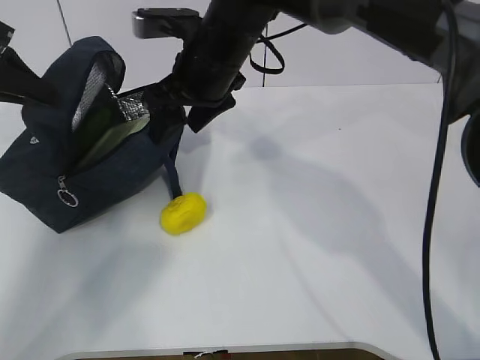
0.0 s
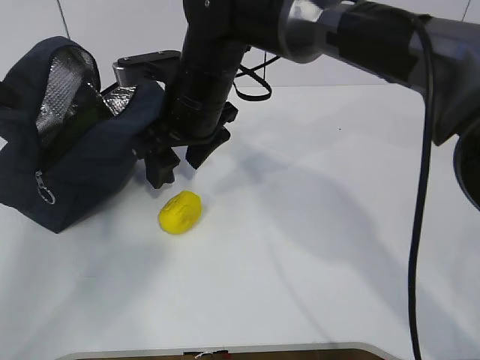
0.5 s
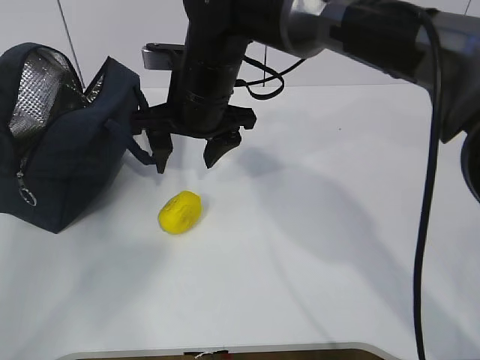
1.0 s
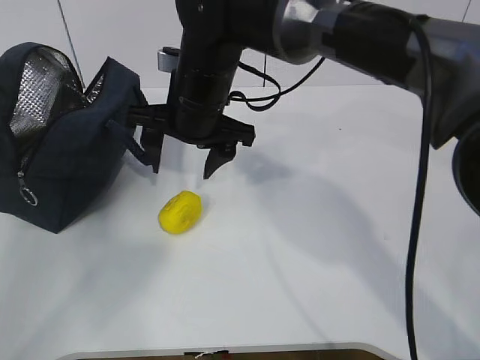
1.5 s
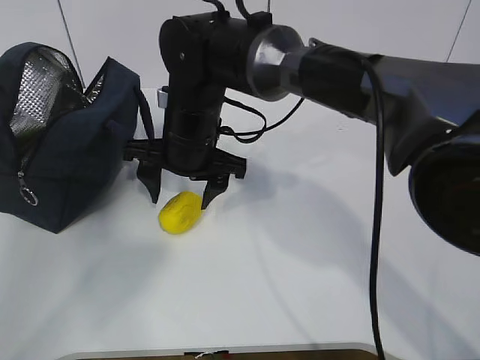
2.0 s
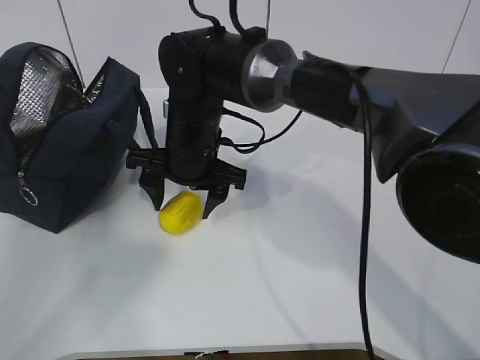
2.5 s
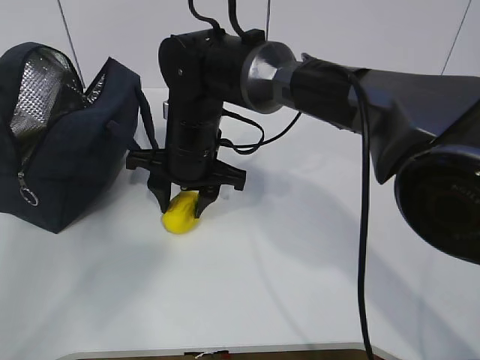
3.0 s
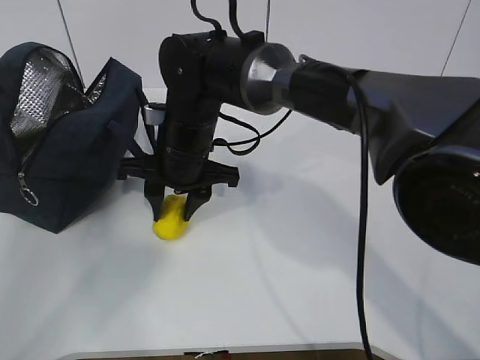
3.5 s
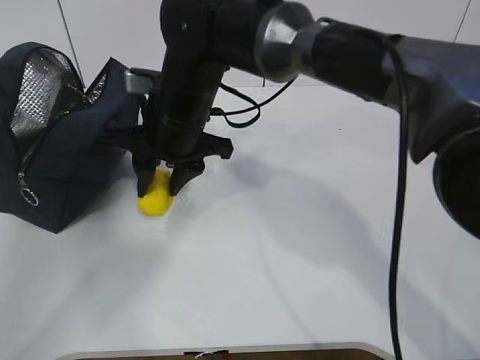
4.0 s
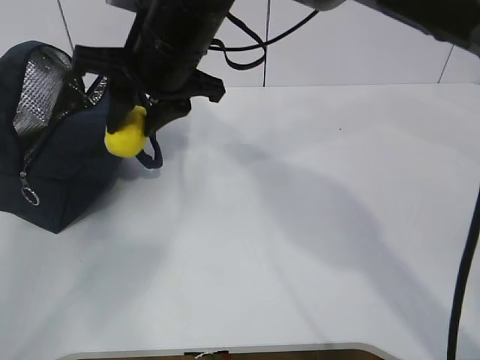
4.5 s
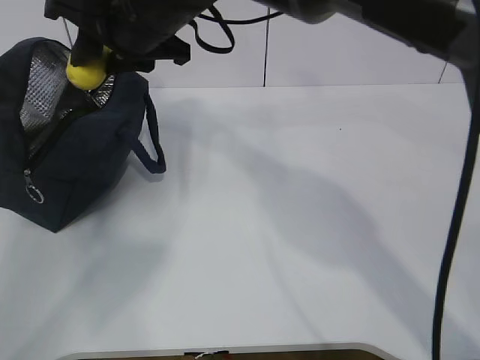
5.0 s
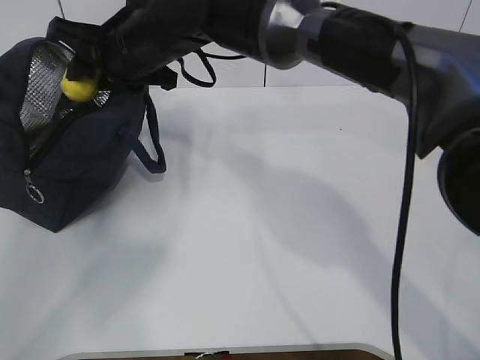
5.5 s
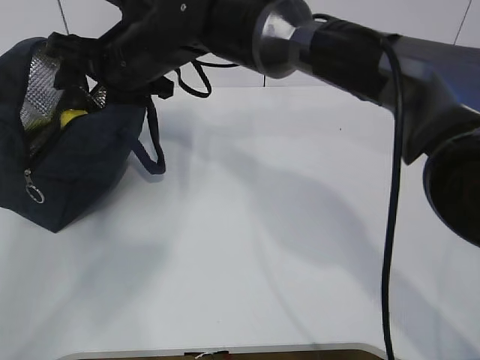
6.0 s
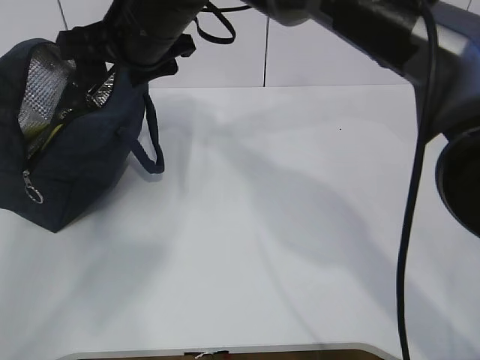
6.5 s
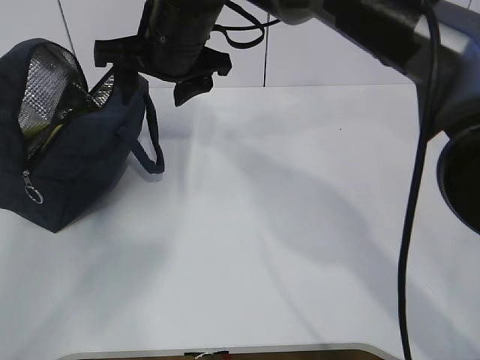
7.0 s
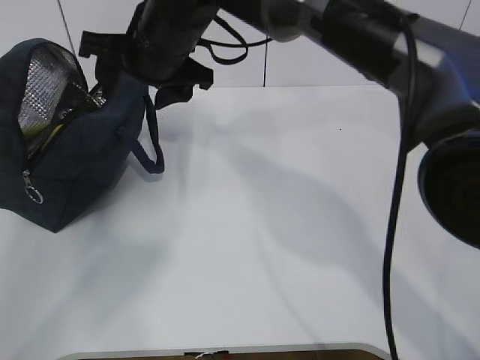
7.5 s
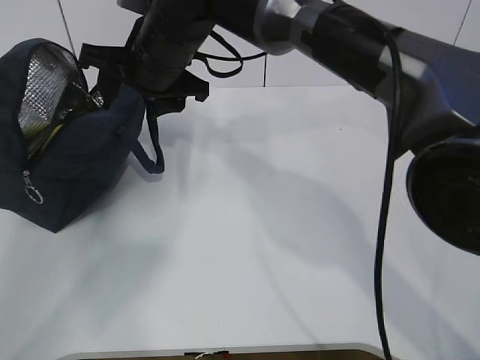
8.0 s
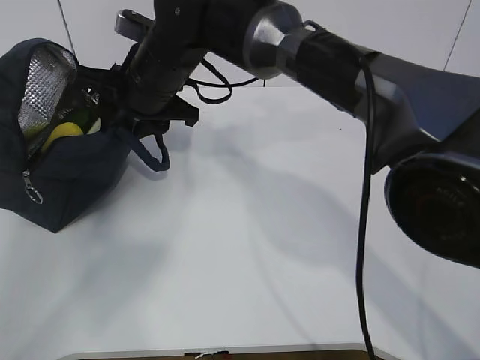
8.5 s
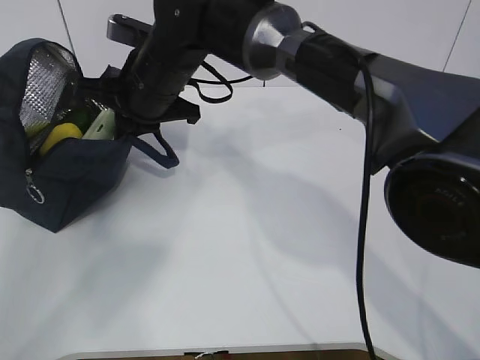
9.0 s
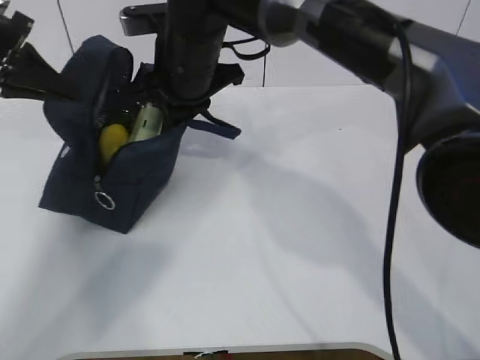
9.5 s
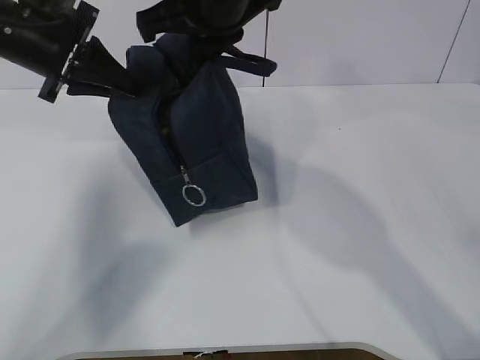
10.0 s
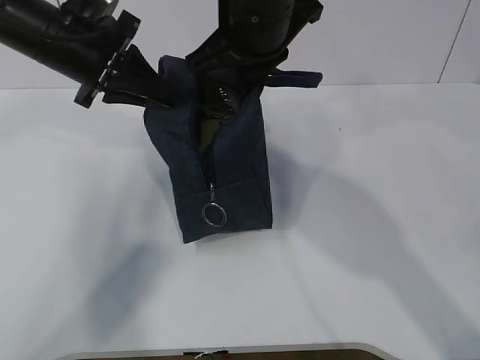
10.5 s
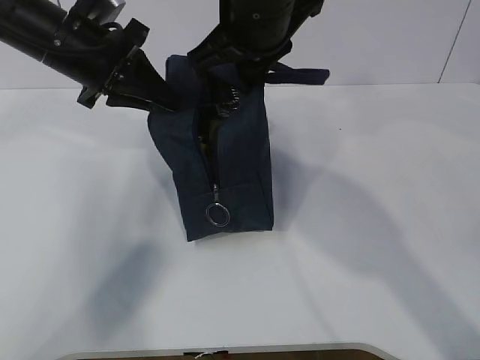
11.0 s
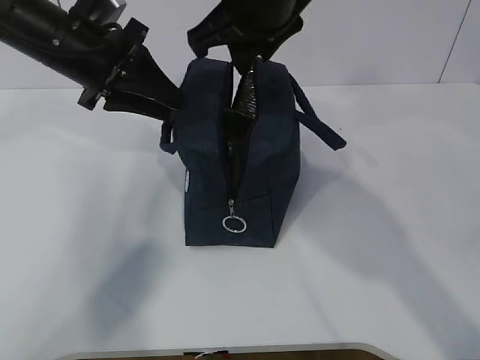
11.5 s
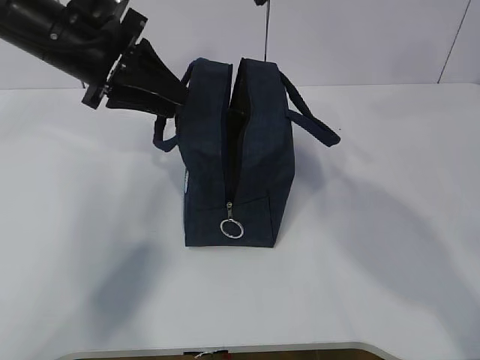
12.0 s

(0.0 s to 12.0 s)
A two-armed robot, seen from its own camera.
Step, 0.0 s - 1.5 s: Grab the lunch bag with your right hand.
0.0 s - 2.0 s: The left gripper moves to the left, some 10 cm; the right gripper is displaced downward by about 5 cm.
2.0 s - 4.0 s: The right gripper closes its fingers.
4.0 s - 6.0 s: The right gripper heads upward, covering some 5 cm, and opens its fingers.
8.0 s - 10.0 s: The left gripper shifts about 15 cm to the right, while the right gripper is displaced upward and to the right by roughly 10 cm, and closes its fingers.
10.0 s - 12.0 s: The right gripper shifts some 10 cm upward, to the right and backward, and opens up, while the left gripper travels to the right by approximately 5 cm, and opens its fingers.

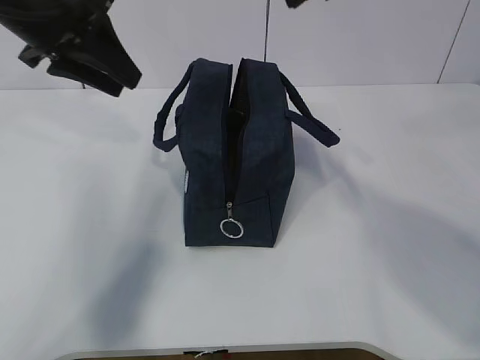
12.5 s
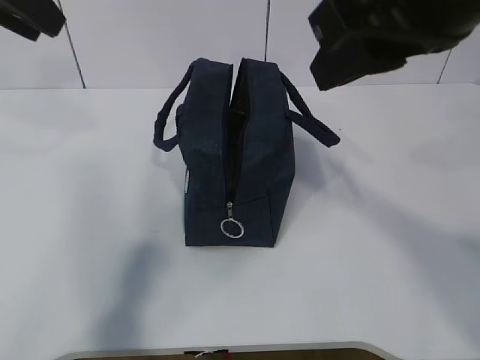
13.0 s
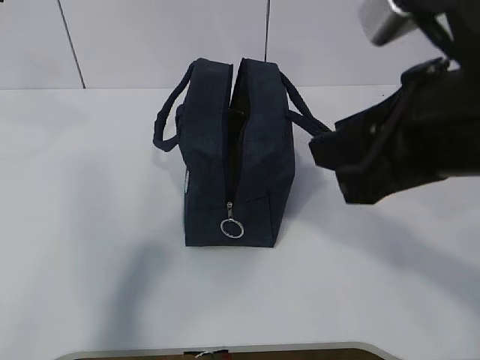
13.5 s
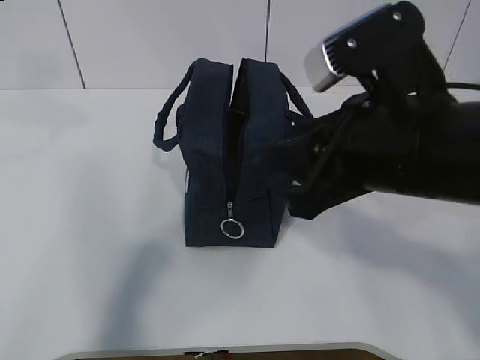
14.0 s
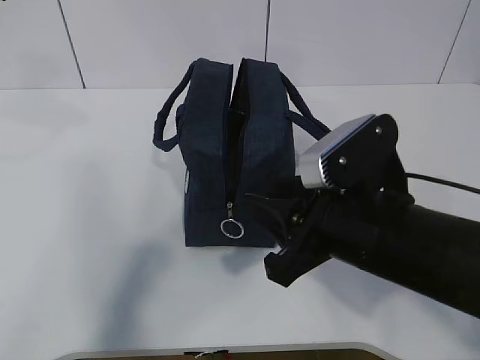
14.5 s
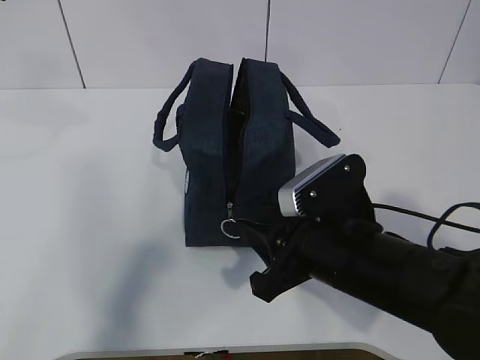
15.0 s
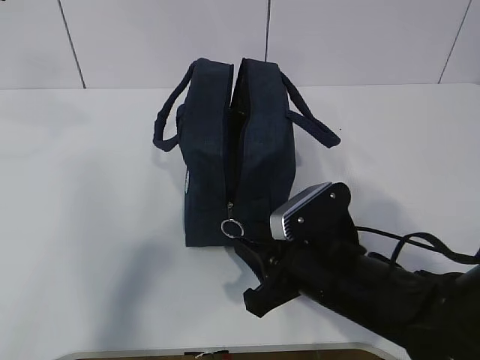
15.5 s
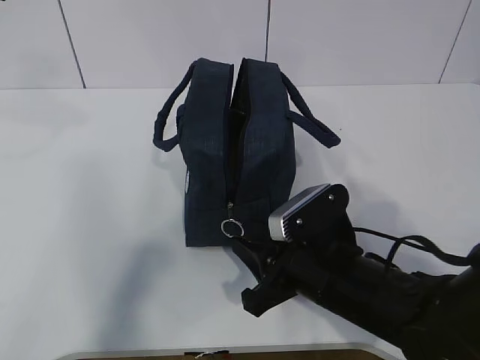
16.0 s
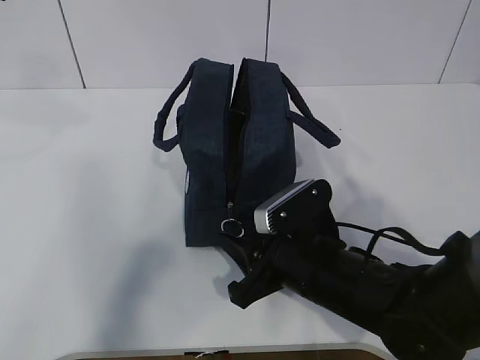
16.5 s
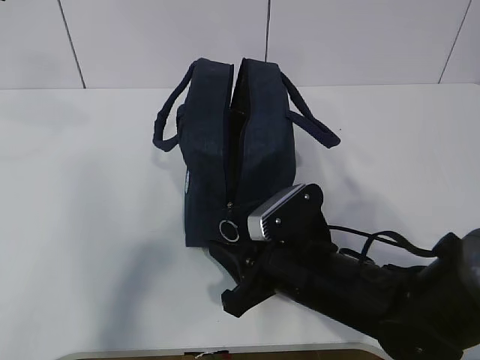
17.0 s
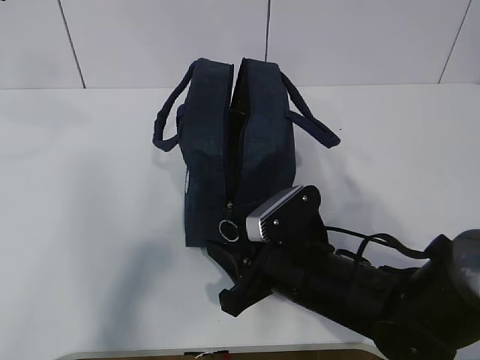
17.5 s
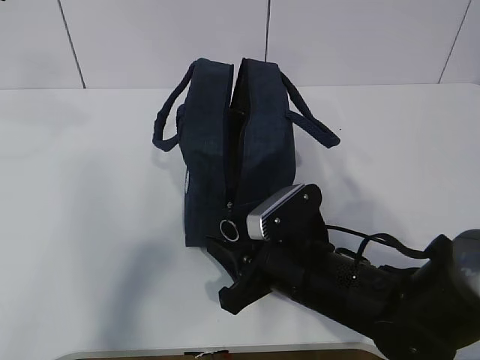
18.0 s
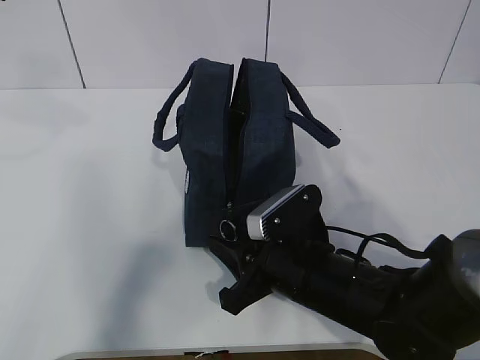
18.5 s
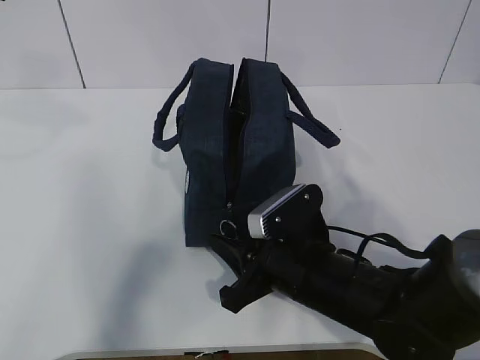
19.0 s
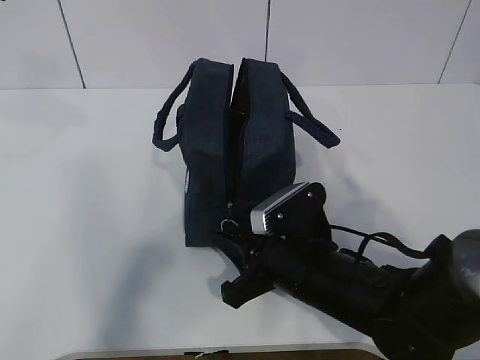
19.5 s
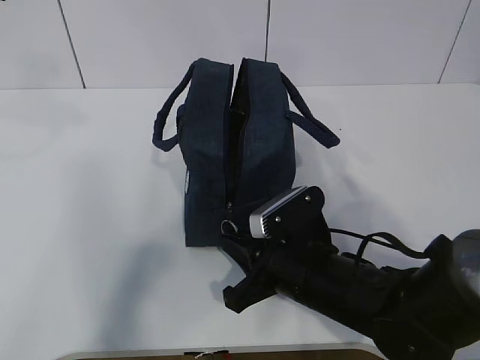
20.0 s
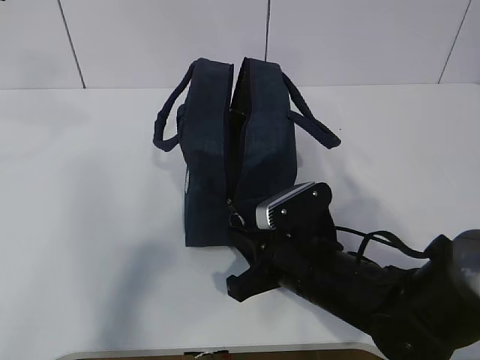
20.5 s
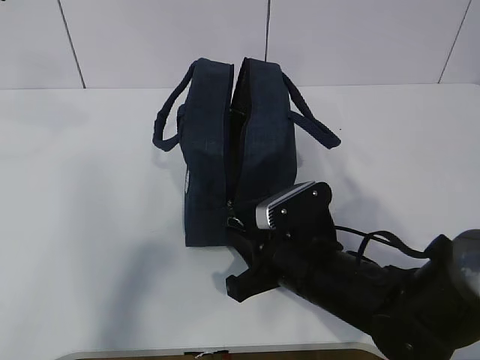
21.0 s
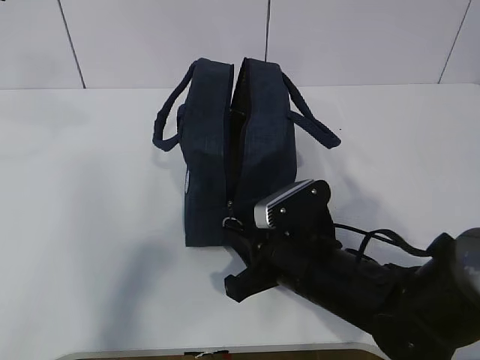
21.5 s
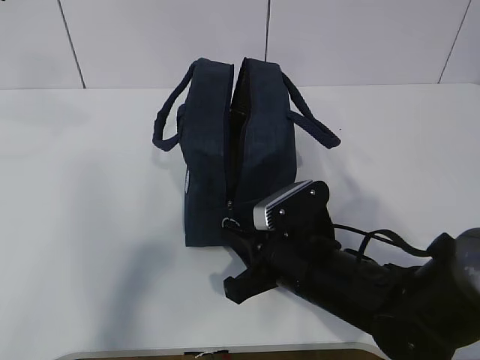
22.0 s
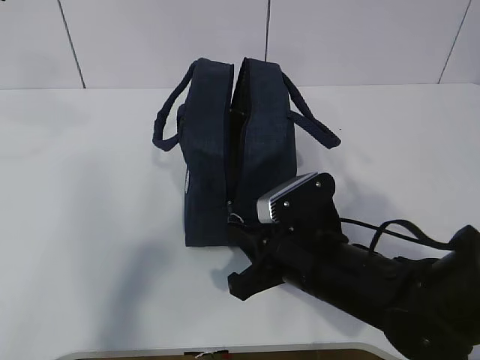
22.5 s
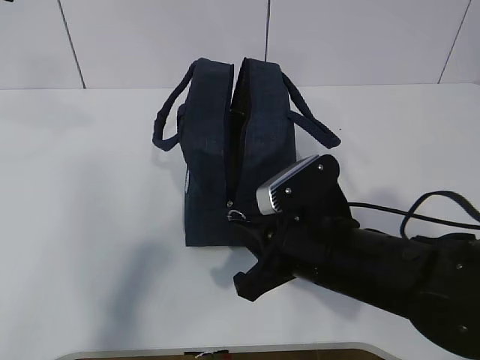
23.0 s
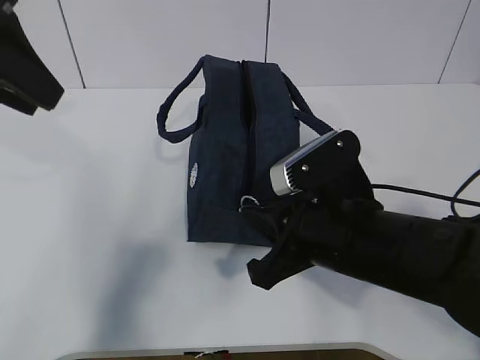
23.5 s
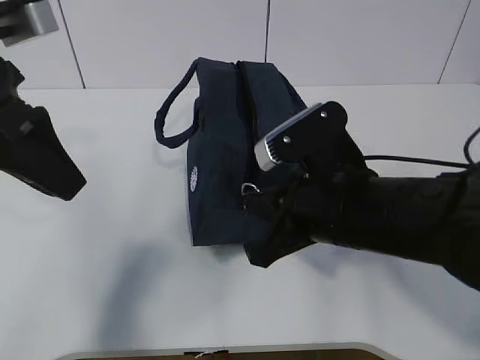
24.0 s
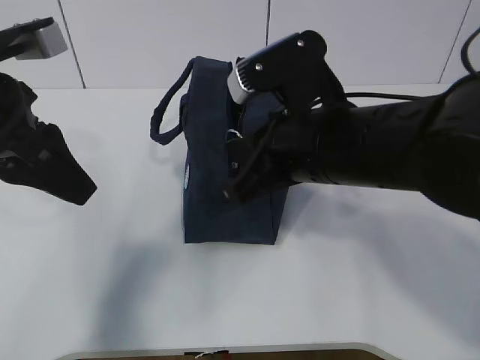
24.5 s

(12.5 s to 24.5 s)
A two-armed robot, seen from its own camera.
Step, 12.5 s - 19.0 s: Grab the lunch bag with your left hand.
Step, 19.5 s - 23.0 s: Pull the zipper with your right hand.
Step, 23.5 s - 24.0 s: Grab the lunch bag with your left hand.
12.5 s - 14.5 s: The left gripper shifts about 15 cm upward and backward. Meanwhile the right gripper heads downward, covering some 25 cm.
14.5 s - 16.5 s: The right gripper goes approximately 10 cm downward.
16.5 s - 18.5 s: The grippers stay close to where they were, moving slightly.
18.5 s - 20.5 s: The right gripper closes.
20.5 s - 22.5 s: The grippers make only small movements.
22.5 s - 24.5 s: The left gripper goes about 15 cm downward; the right gripper heads upward, covering about 15 cm.

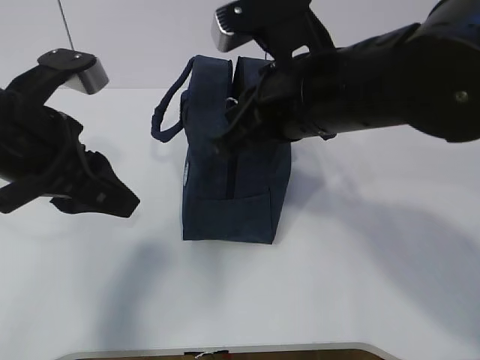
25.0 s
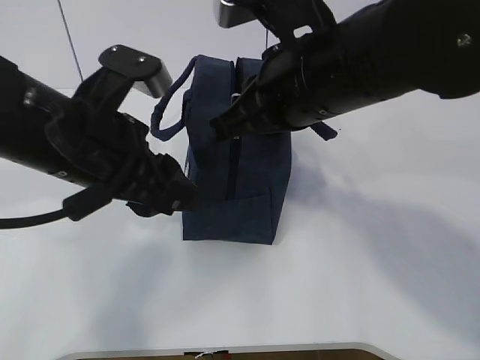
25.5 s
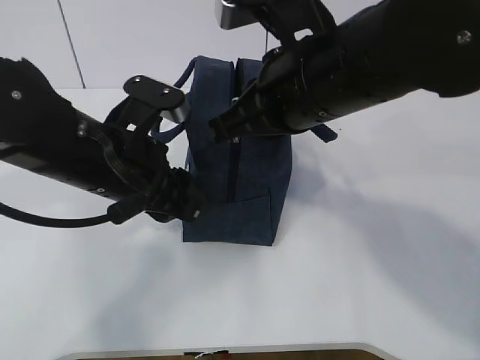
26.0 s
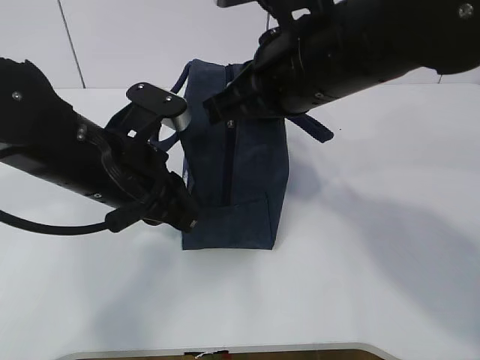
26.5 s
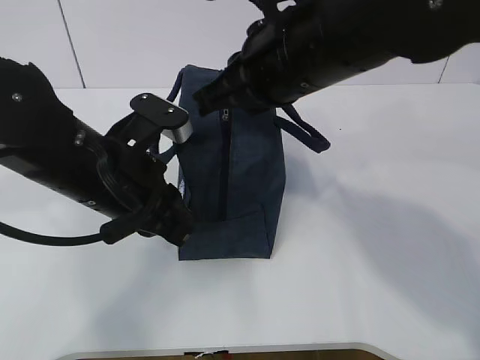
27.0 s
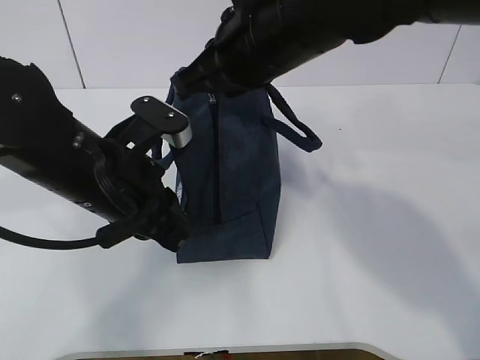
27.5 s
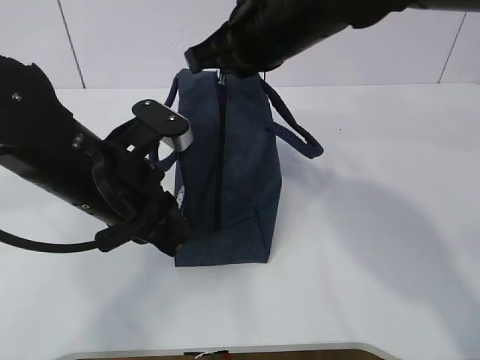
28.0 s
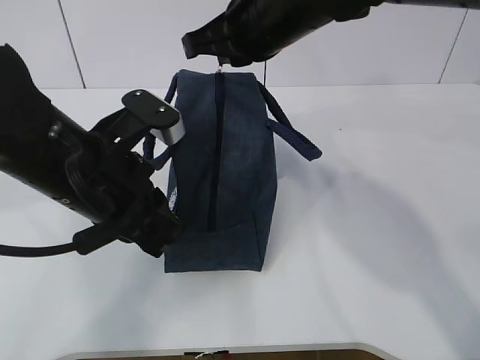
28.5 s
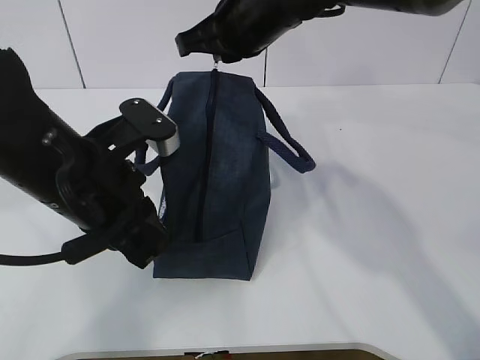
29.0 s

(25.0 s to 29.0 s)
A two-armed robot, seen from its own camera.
25.0 s - 27.0 s: The left gripper is displaced to the right and downward by roughly 10 cm, and closes its fingers.
27.0 s - 29.0 s: The right gripper travels forward by some 10 cm.
